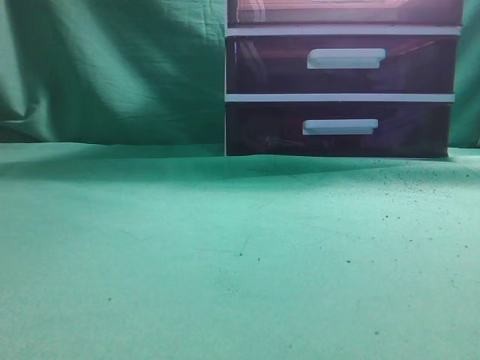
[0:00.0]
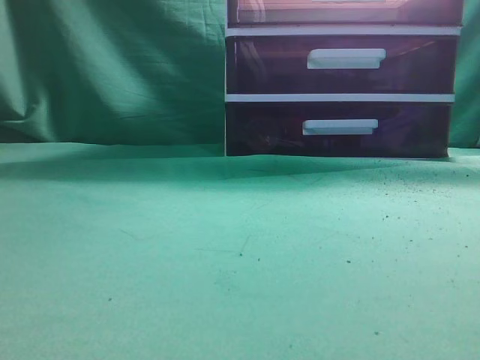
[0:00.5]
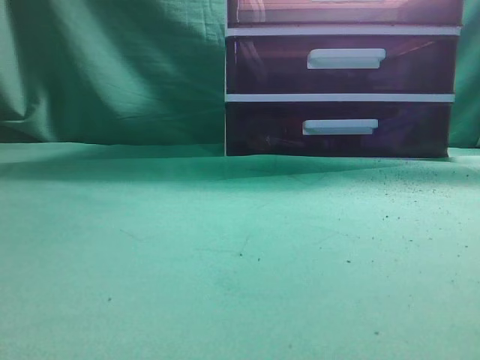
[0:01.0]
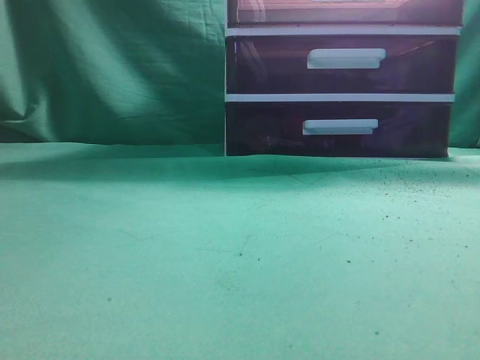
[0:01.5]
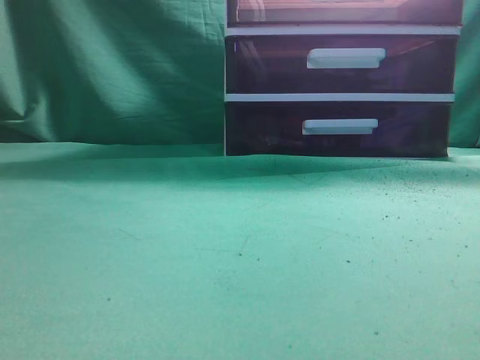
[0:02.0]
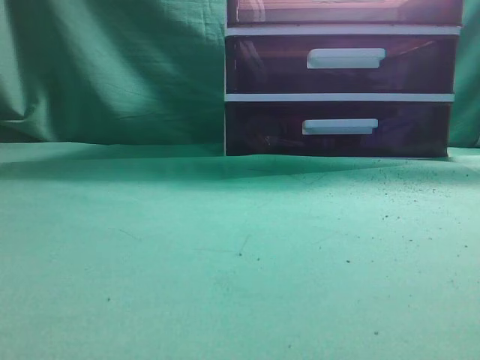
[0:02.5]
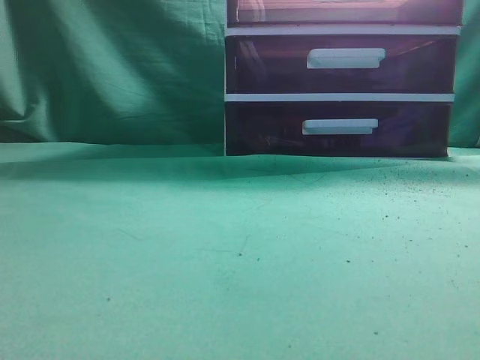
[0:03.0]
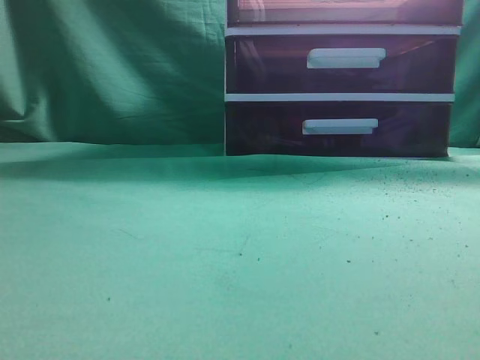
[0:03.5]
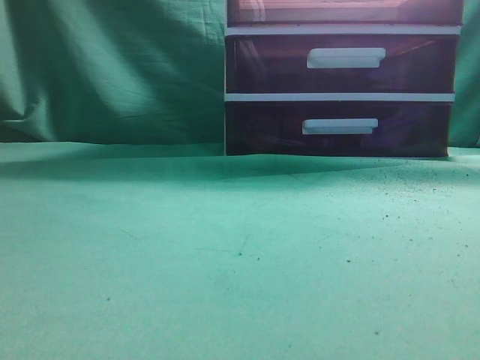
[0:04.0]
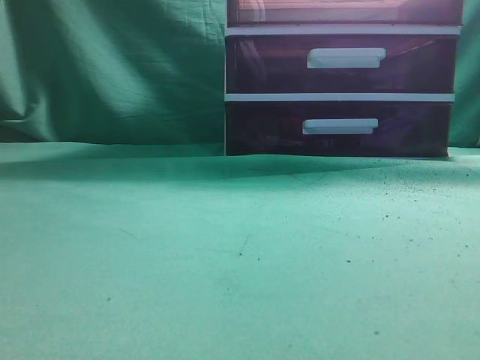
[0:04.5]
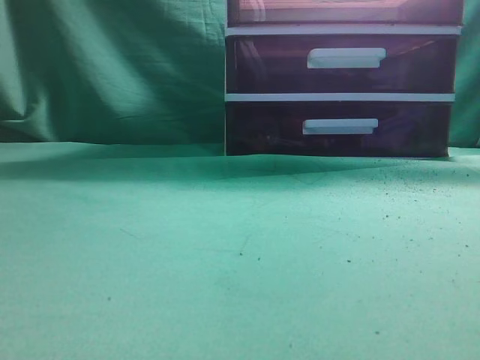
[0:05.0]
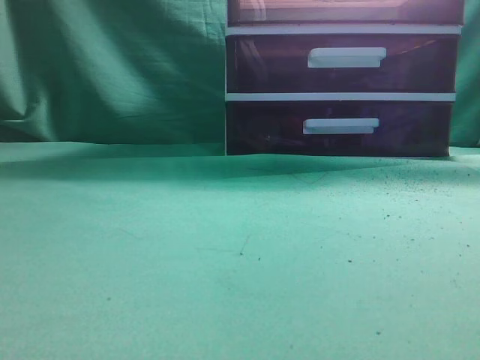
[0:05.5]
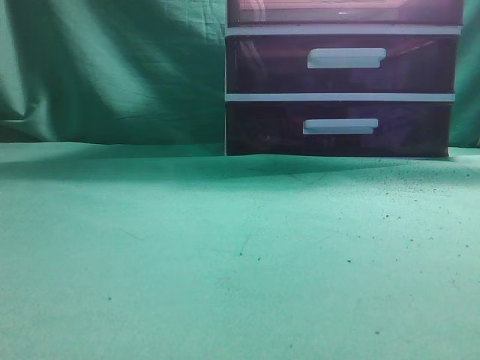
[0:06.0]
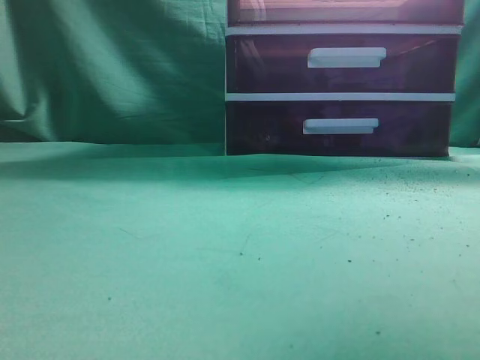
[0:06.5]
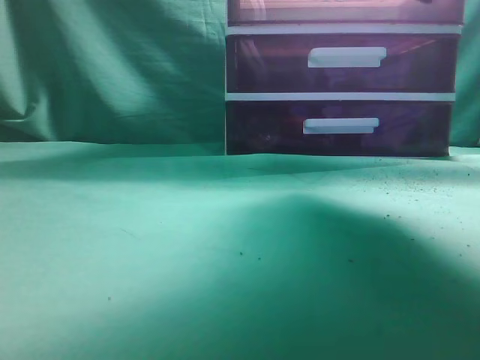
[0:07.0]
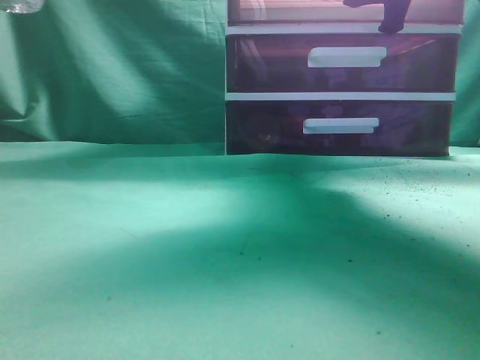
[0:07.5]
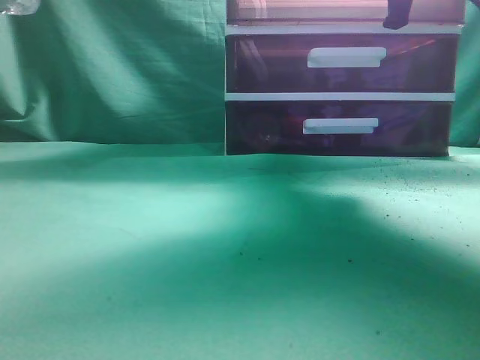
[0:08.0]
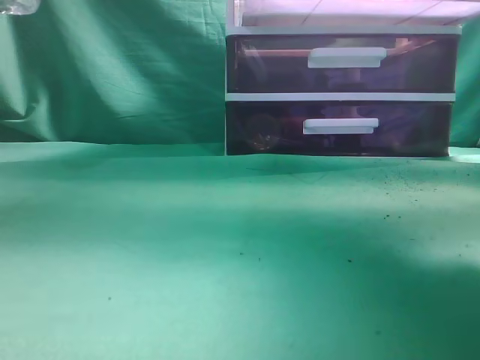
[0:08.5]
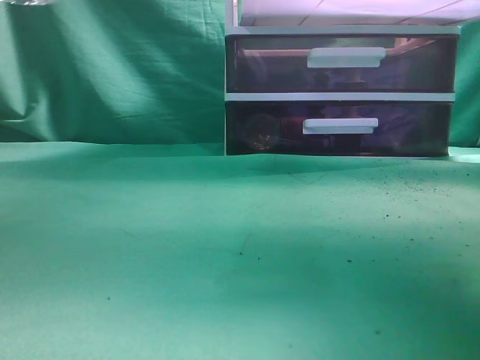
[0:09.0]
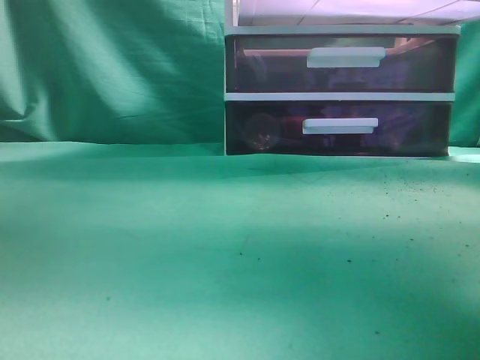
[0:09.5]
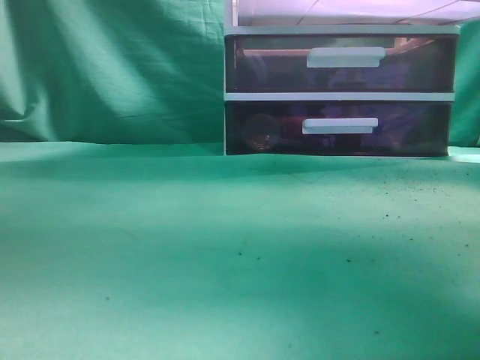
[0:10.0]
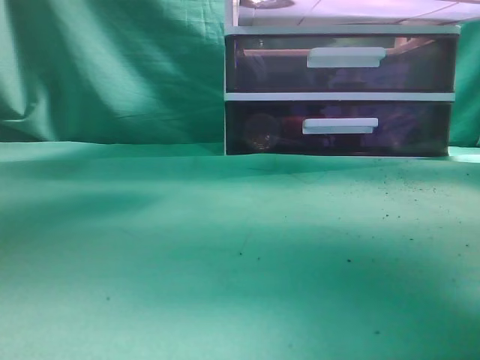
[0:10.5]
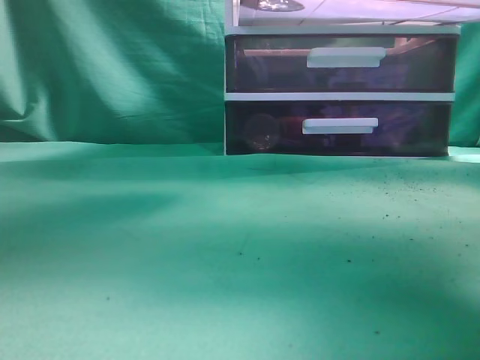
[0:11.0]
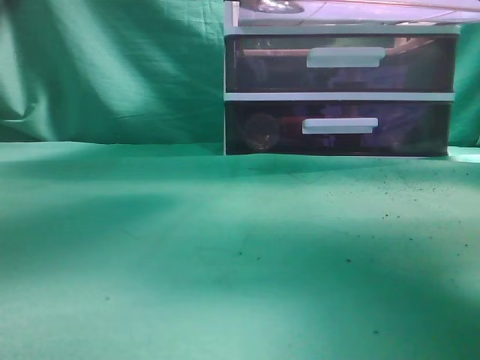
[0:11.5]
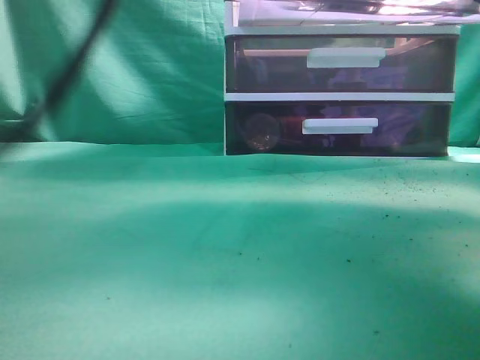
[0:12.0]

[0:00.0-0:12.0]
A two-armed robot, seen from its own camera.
Task of the whole recording: place the water bottle into the drawer.
Step, 0:00.0 to 0:08.5: Open the drawer.
0:06.0 to 0:08.0: The right gripper is displaced forward by approximately 30 cm, and opens, then closes again; the left gripper ends up roughly 5 cm from where it was.
0:08.0 to 0:10.0: The left gripper is displaced to the right and upward by roughly 20 cm. Meanwhile the right gripper goes some 15 cm backward.
0:10.0 to 0:12.0: The left gripper goes about 20 cm to the right and downward, and opens its fingers.

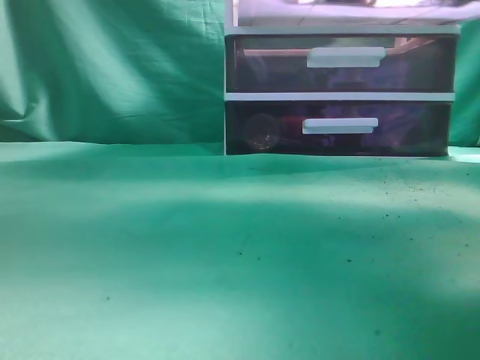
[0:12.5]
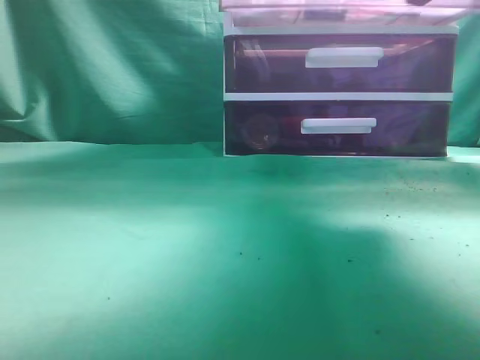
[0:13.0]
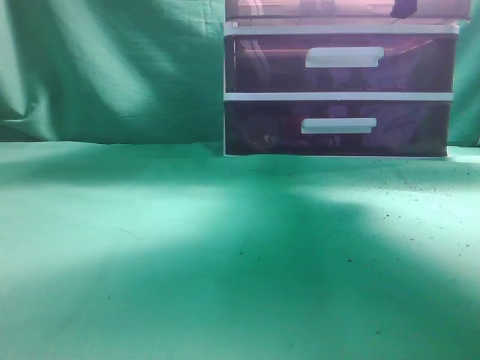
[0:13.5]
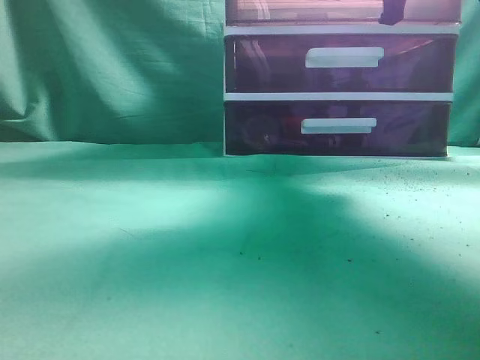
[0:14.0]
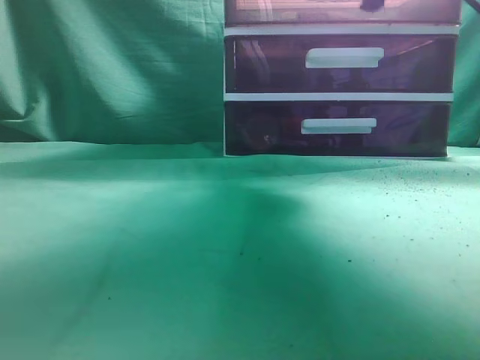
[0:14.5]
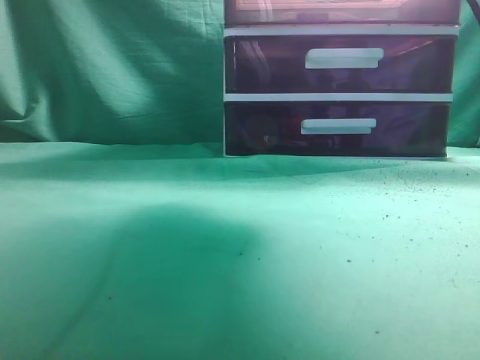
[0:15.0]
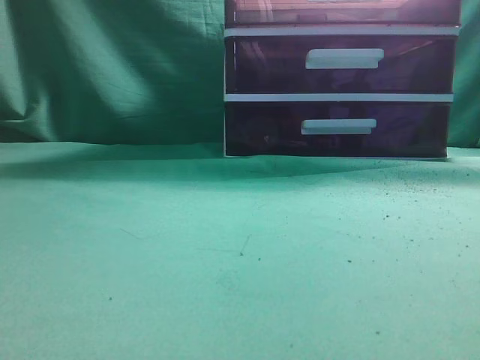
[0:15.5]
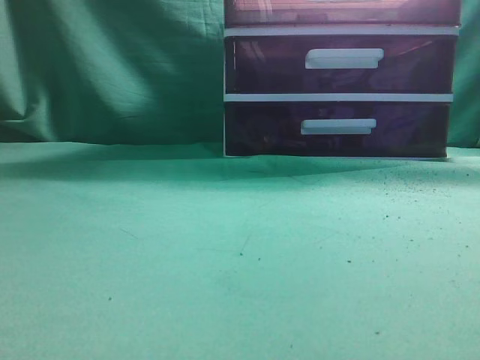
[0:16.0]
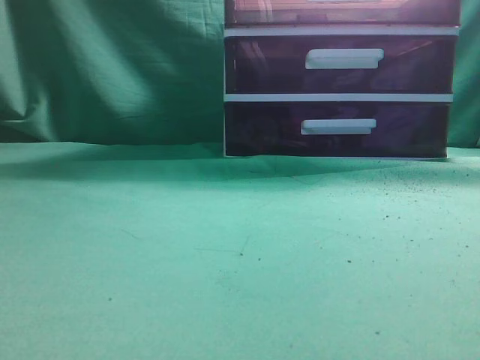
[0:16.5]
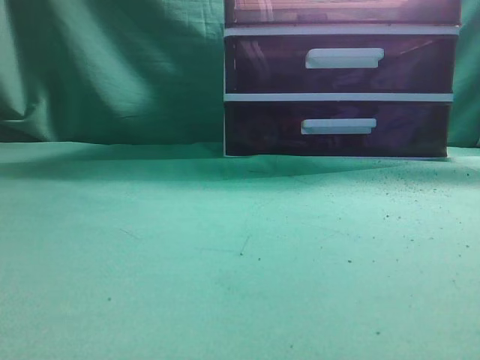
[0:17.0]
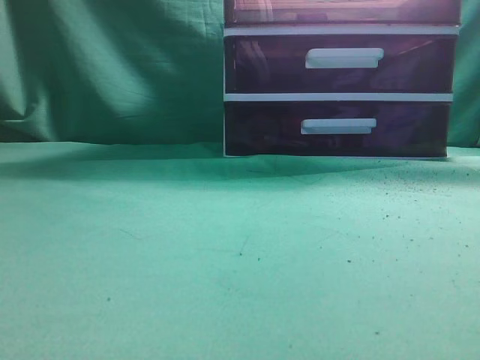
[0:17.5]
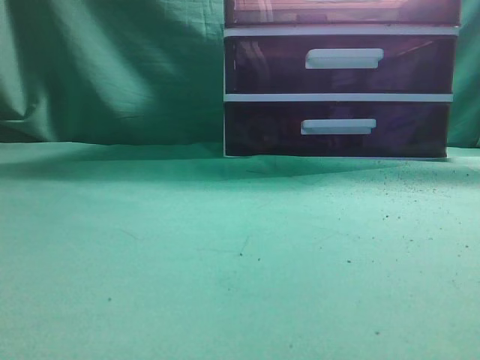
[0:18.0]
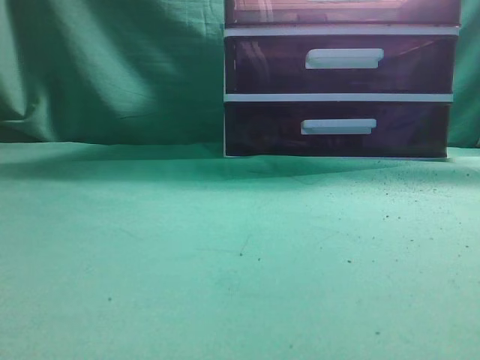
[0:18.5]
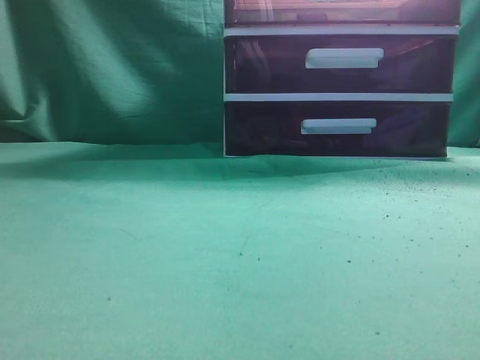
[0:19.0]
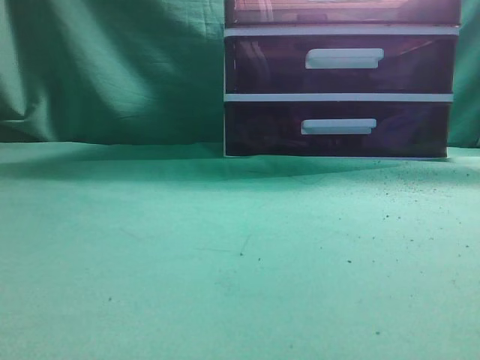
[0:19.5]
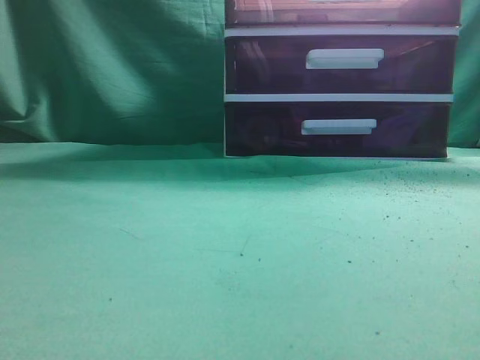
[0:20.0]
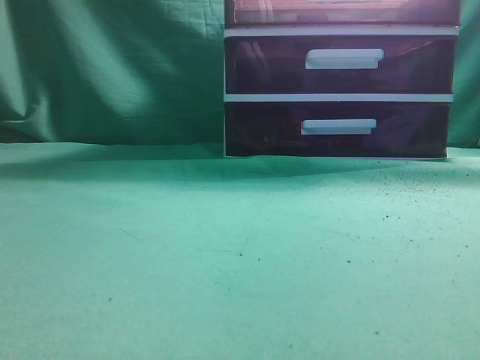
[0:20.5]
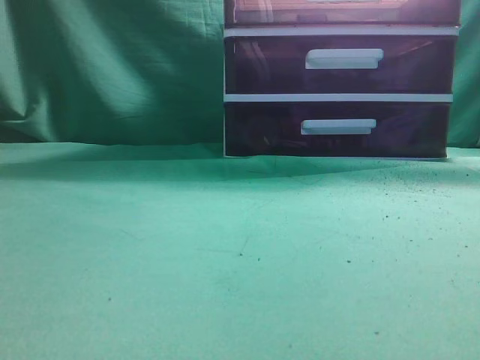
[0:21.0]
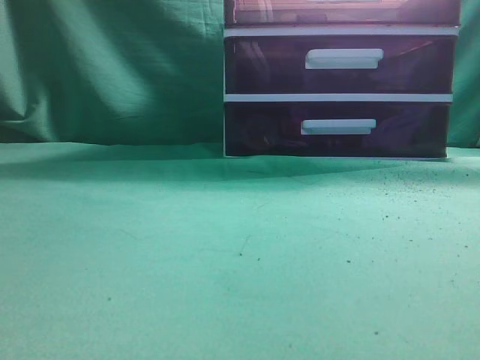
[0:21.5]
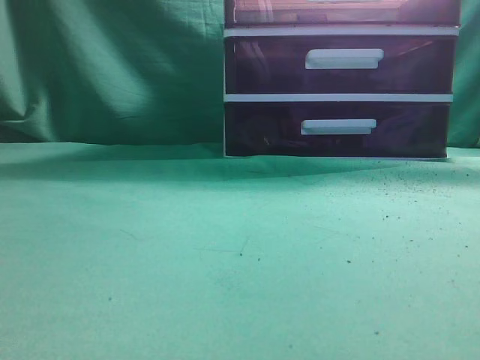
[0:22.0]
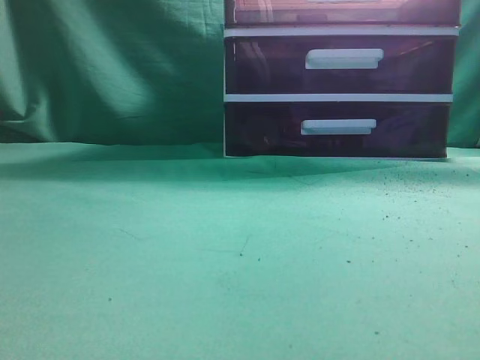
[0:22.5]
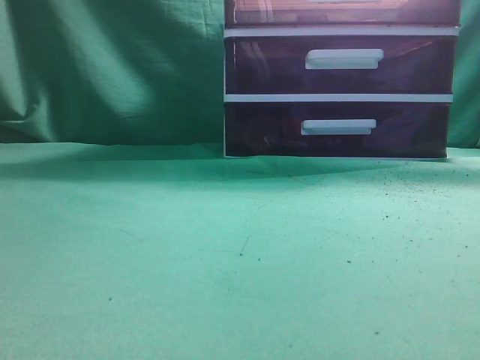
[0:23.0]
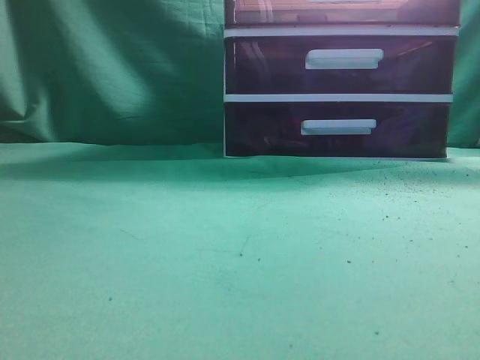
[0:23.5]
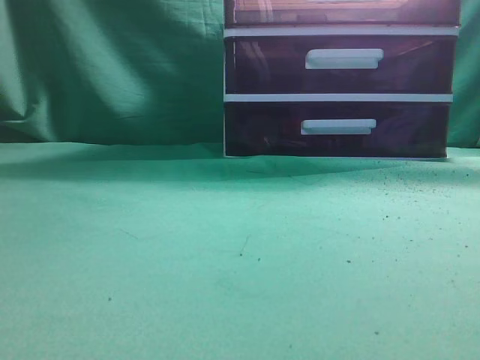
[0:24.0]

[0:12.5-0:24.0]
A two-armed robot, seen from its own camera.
Task of the whole recording: place the water bottle into the drawer.
Step, 0:12.5 to 0:15.0: Close the drawer.
0:12.5 to 0:14.5: The left gripper is displaced backward, to the left and downward by approximately 25 cm. Meanwhile the right gripper is displaced forward by about 15 cm, and opens up.
0:14.5 to 0:16.5: The right gripper shifts about 30 cm backward, and closes up. The left gripper heads backward and to the left, covering about 15 cm, and moves approximately 10 cm upward and comes back.
